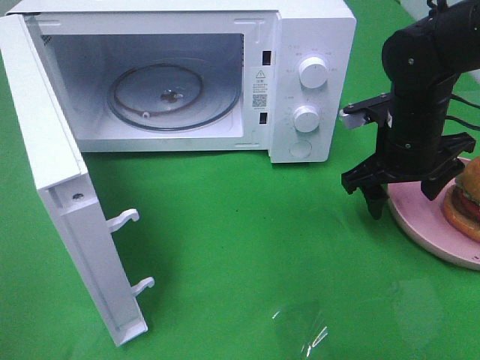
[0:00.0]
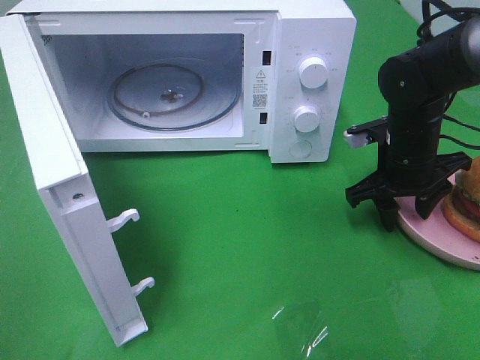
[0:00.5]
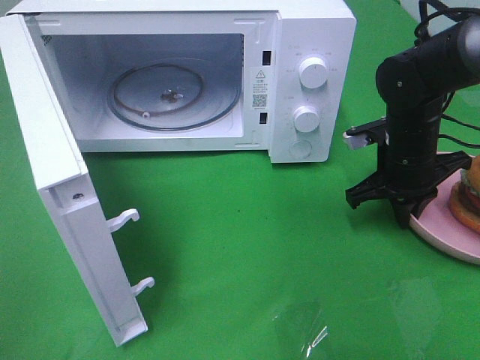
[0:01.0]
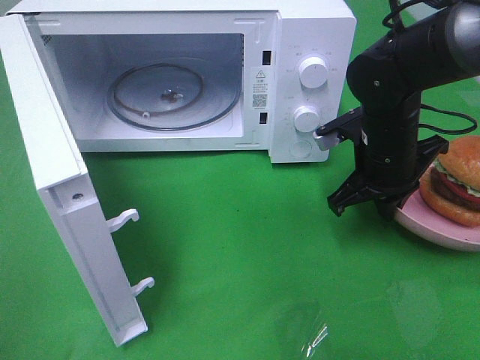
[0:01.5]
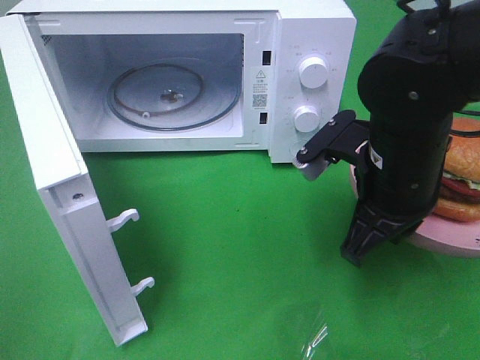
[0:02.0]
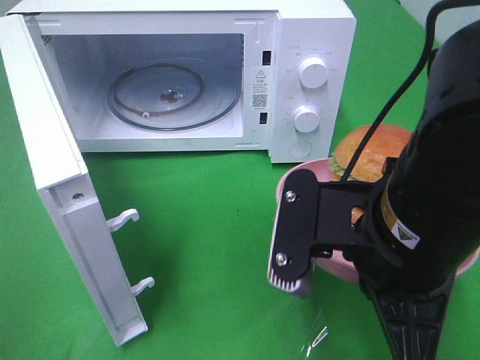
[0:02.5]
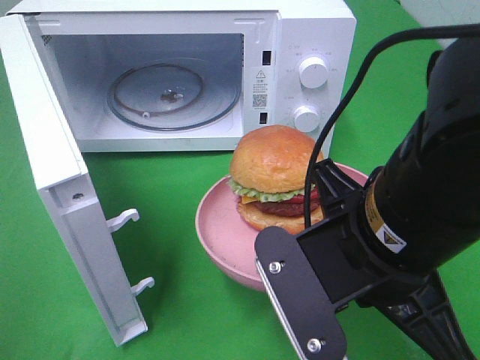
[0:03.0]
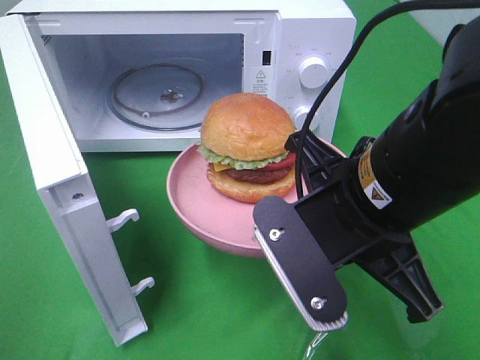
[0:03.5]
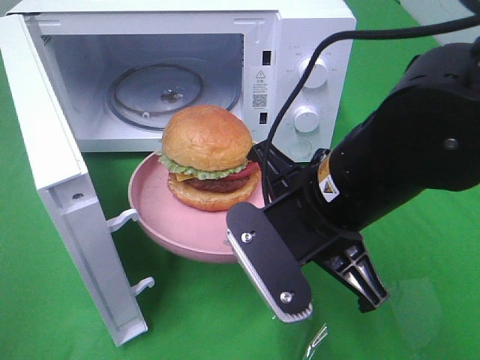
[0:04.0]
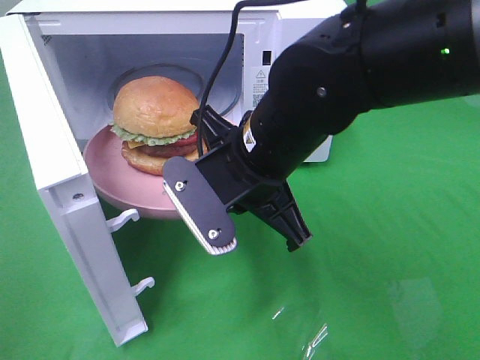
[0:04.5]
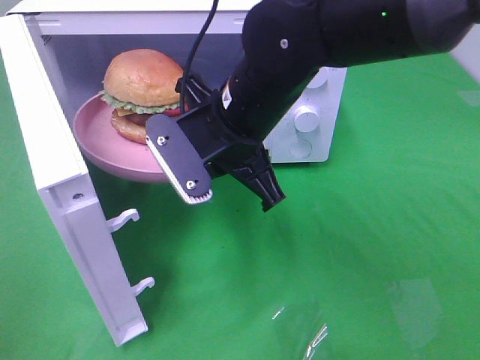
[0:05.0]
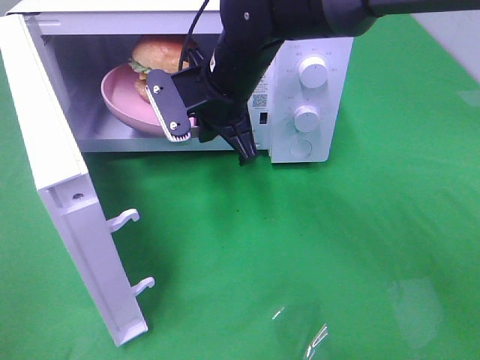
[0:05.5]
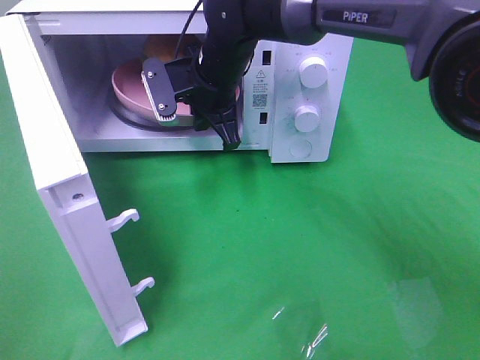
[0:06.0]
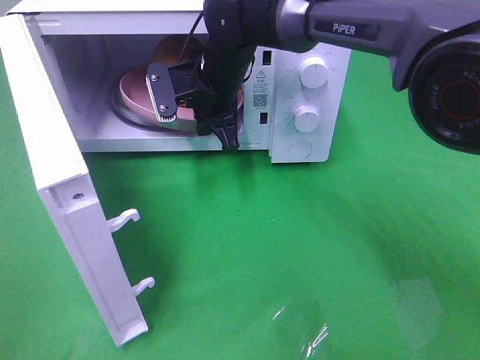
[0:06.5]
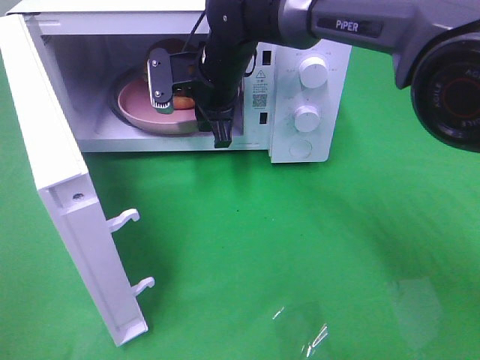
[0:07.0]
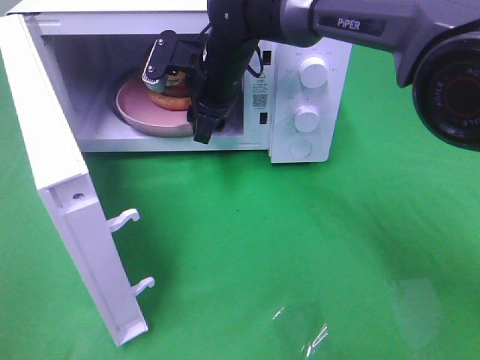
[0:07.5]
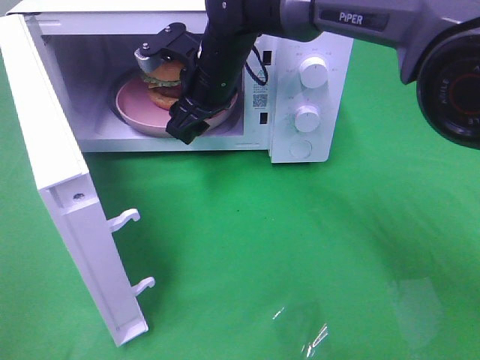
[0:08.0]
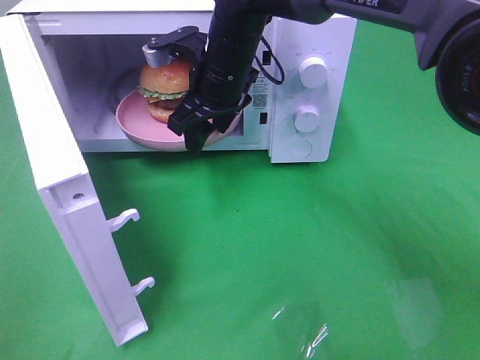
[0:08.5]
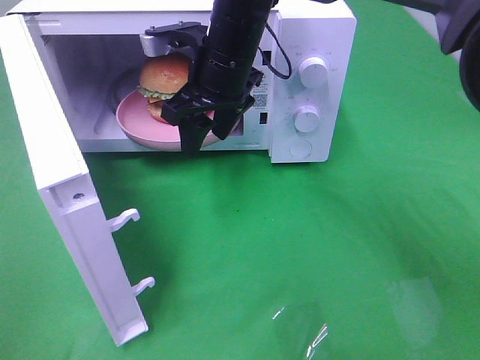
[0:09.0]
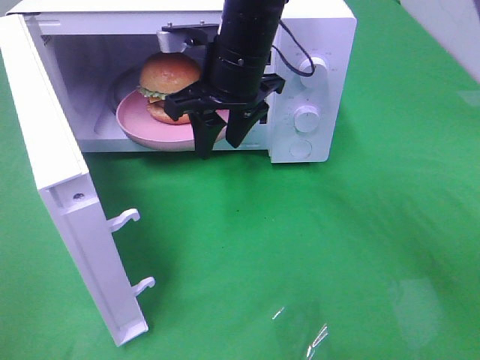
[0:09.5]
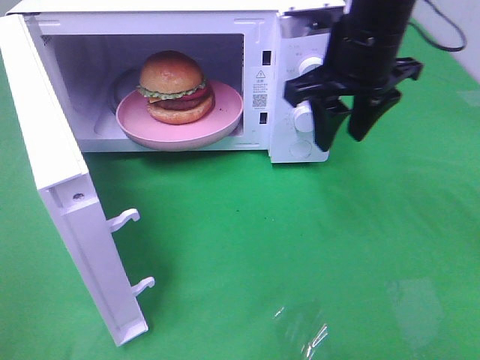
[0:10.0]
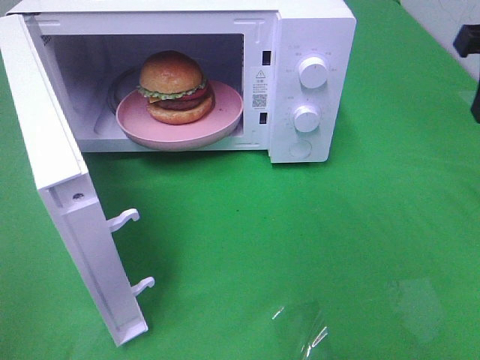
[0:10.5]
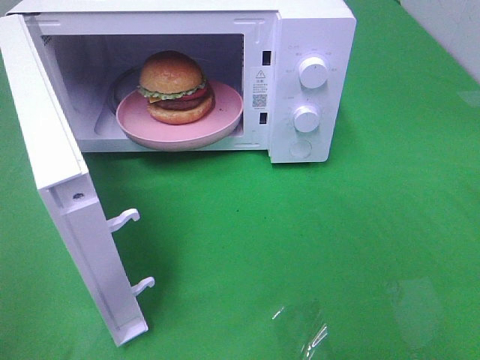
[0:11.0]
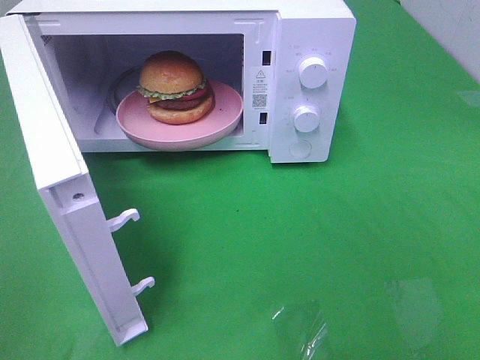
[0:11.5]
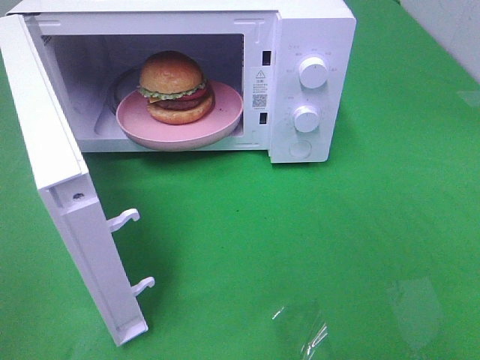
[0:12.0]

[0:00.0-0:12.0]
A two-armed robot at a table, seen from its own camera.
Task of the whole recording: Heat the burger.
Step, 0:01.5 to 0:07.5: Right hand: place the plate in the microwave.
0:00.0 to 0:02.0: The right gripper is displaced backward and to the left by some 10 cm, and closes.
0:02.0 to 0:04.0: The right gripper moves to the left, about 5 cm.
0:04.0 to 0:06.0: The right gripper is displaced forward and to the left by roughly 25 cm.
0:06.0 to 0:08.0: The right gripper opens up.
0:08.0 to 0:10.0: The right gripper moves to the right, upward and backward, some 20 cm.
0:10.0 to 0:12.0: The right gripper moves backward and to the right, some 35 cm.

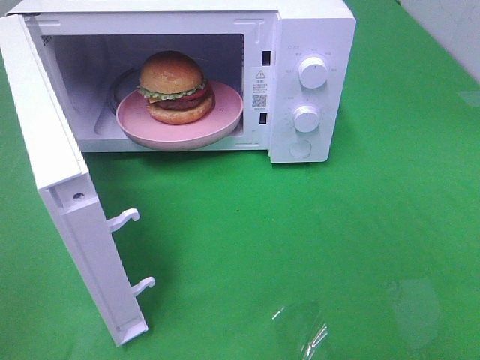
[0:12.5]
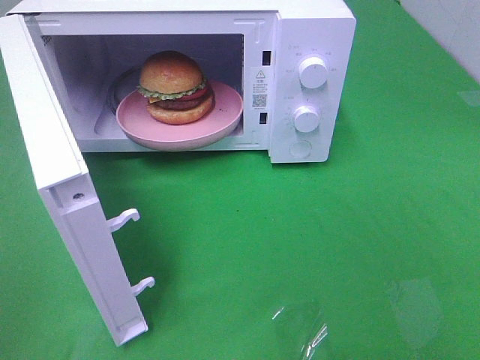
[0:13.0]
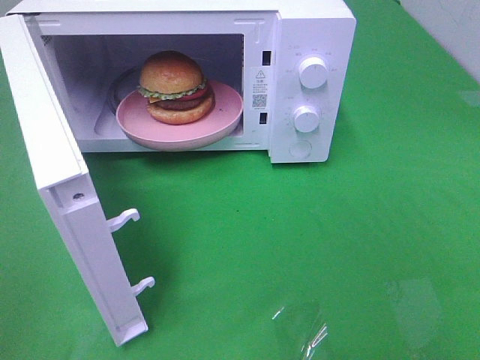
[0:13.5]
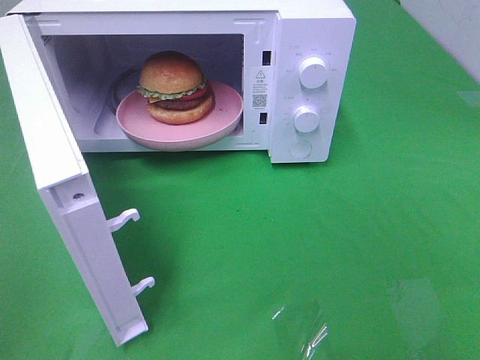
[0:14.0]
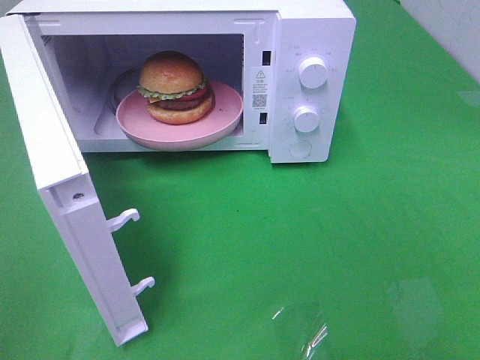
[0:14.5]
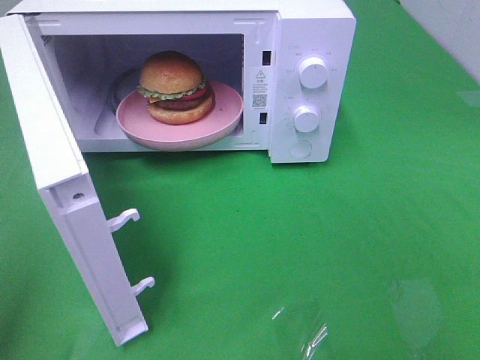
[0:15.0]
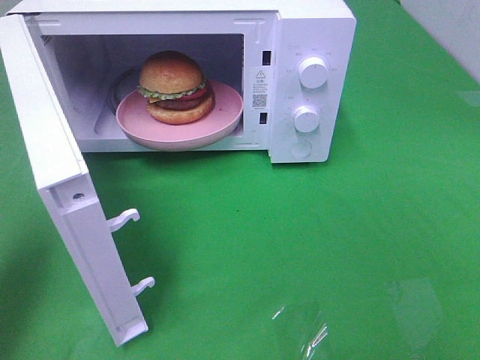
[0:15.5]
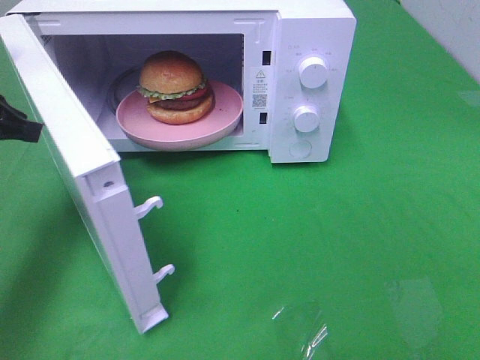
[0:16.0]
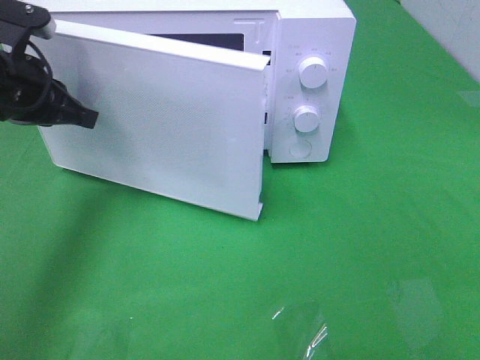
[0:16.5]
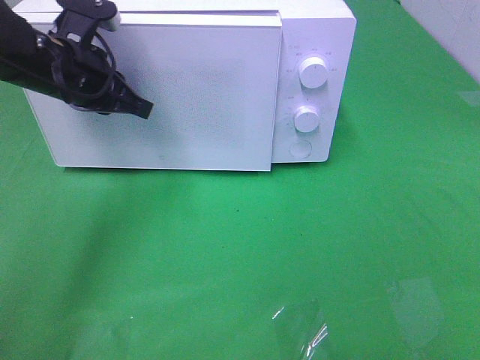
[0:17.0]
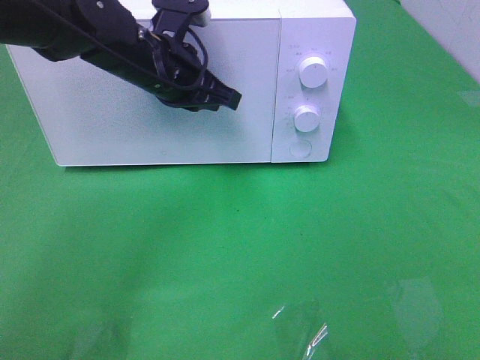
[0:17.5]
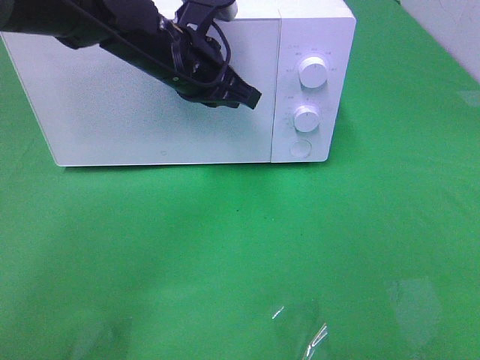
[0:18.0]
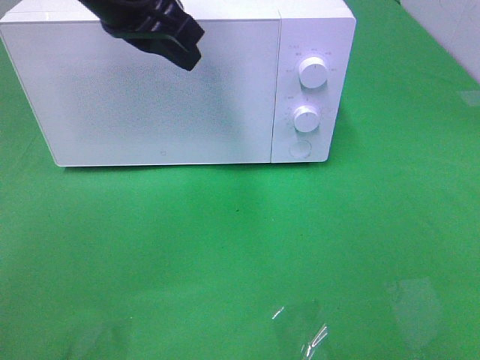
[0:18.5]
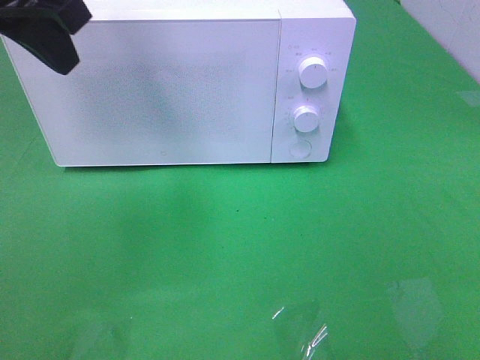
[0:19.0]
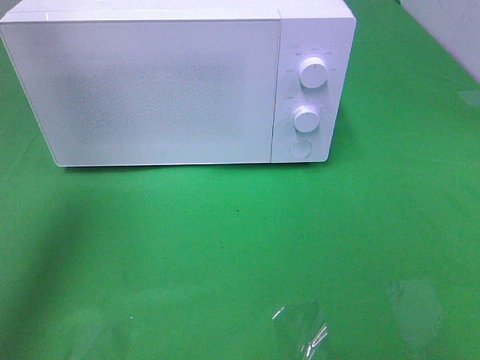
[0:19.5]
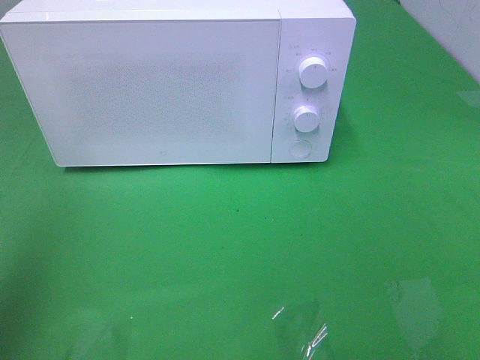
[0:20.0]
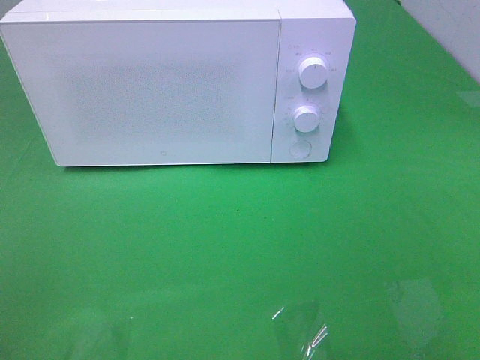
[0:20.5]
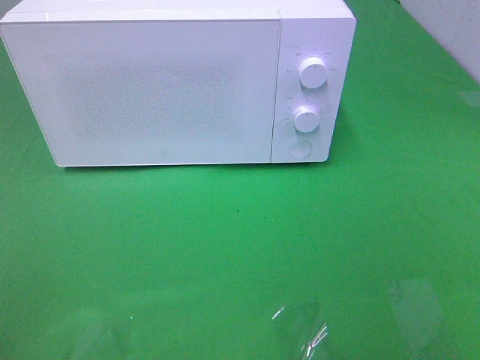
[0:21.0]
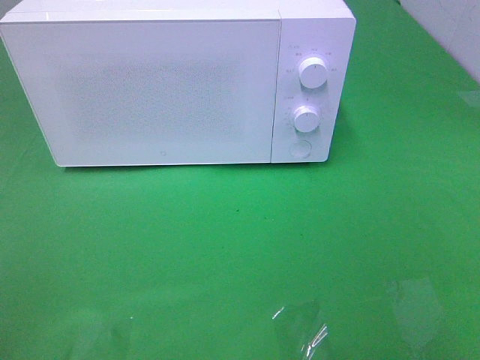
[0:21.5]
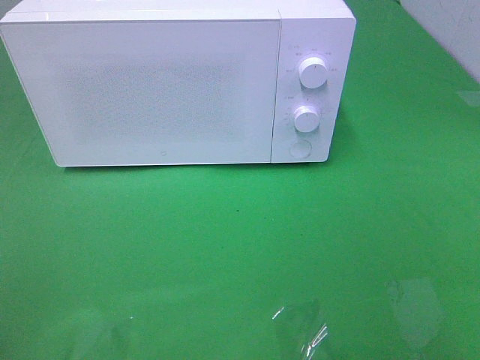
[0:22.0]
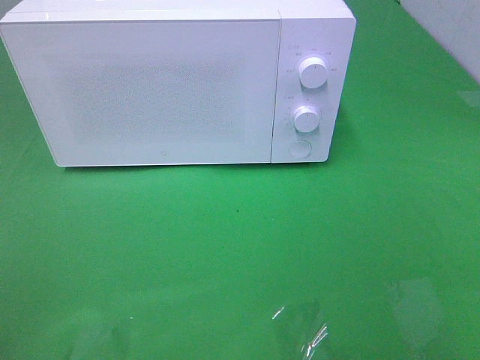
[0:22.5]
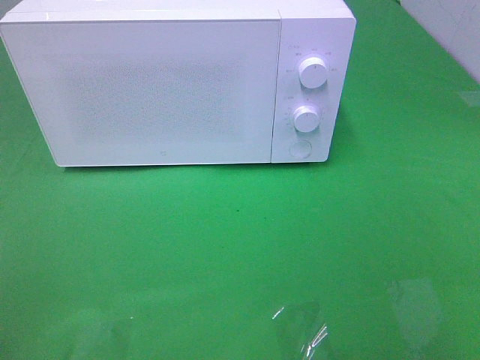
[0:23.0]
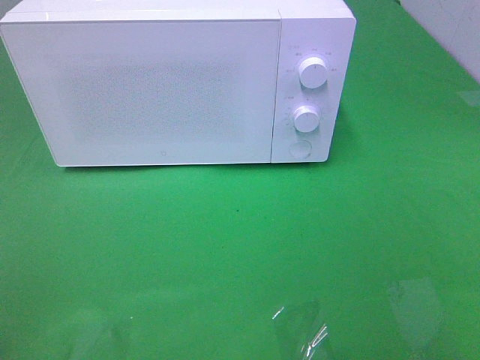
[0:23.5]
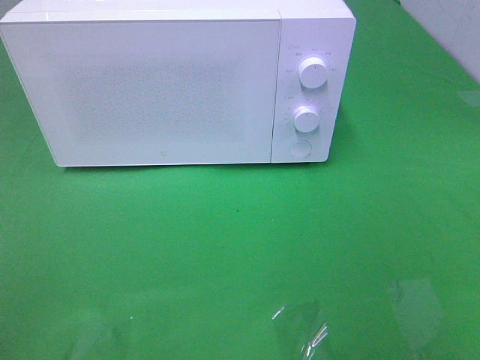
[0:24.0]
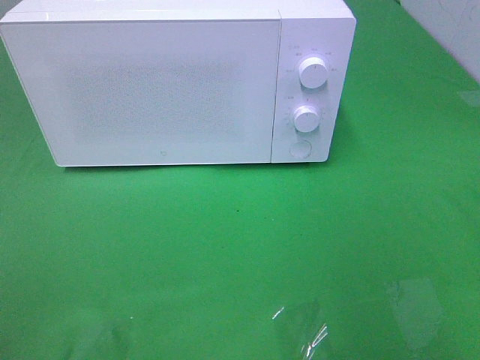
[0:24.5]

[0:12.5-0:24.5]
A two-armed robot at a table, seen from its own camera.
Task of the whole recording: Heat the burger.
Step, 0:12.5 to 0:18.0: Left hand: close the microwave door.
0:14.5 to 0:16.5: The left gripper heads forward, covering roughly 35 cm.
0:16.5 to 0:18.5: The left gripper is displaced to the right and upward by some 15 cm.
0:18.5 to 0:20.5: The left gripper travels backward and to the left by some 40 cm.

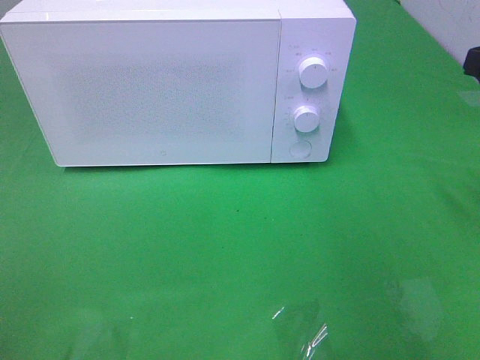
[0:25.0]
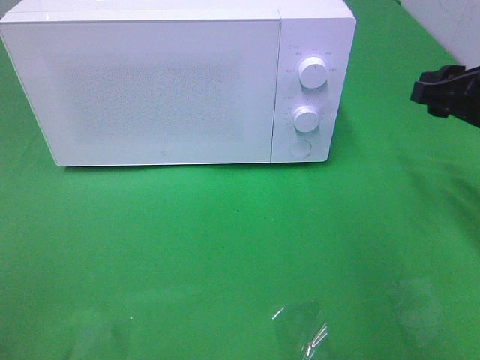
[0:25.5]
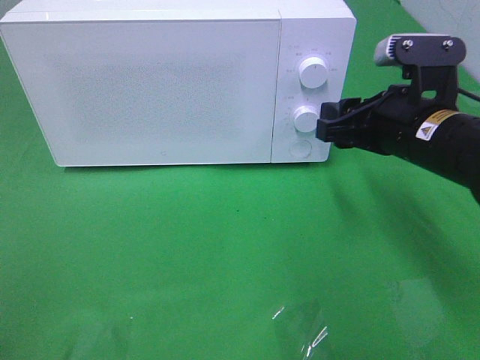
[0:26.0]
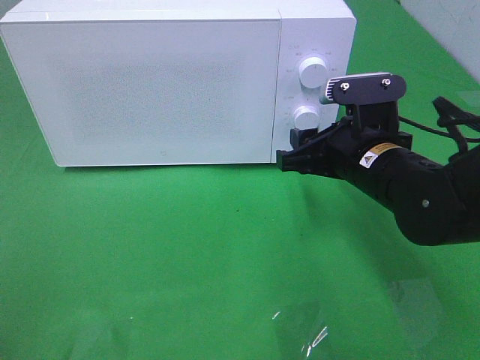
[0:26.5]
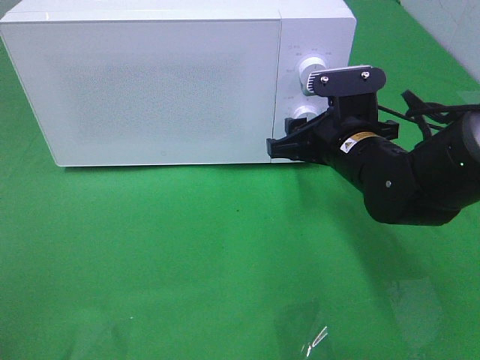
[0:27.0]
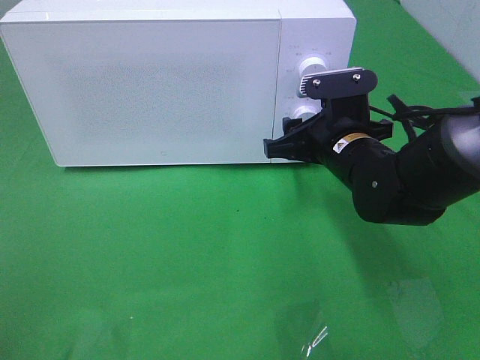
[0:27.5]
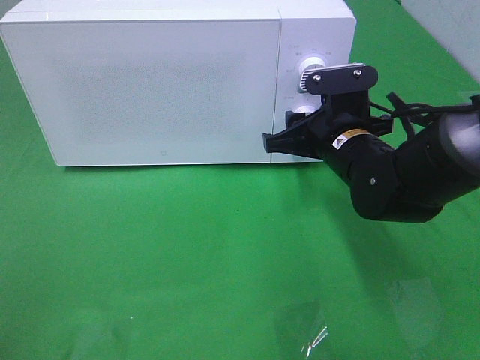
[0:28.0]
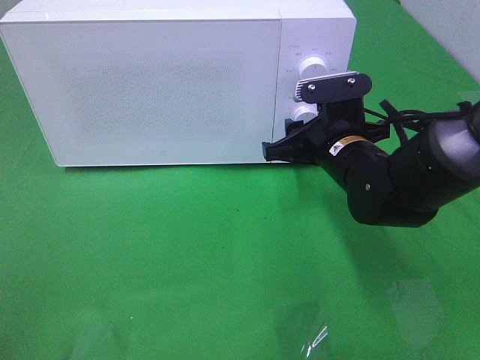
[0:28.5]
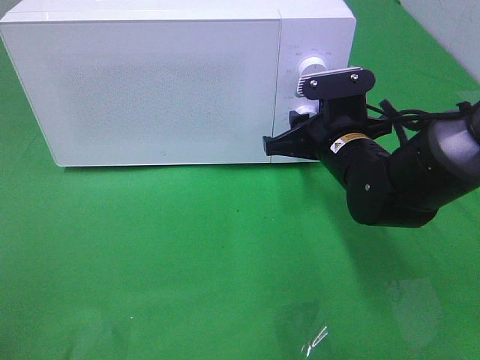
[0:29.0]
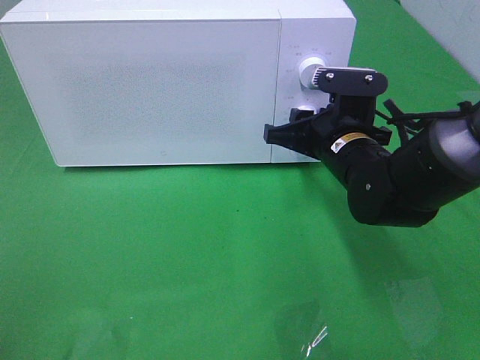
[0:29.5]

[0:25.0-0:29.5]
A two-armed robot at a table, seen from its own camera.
Task of the whole recording: Heat the burger.
0:25.0 to 0:27.0: The right gripper is displaced to the left, downward and forward by about 20 cm.
0:27.0 to 0:29.5: There are only small adjustments of the grippers.
